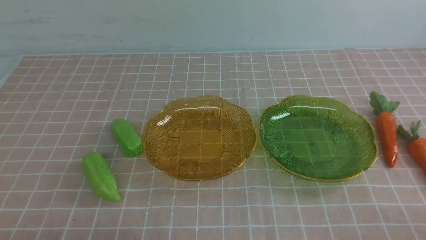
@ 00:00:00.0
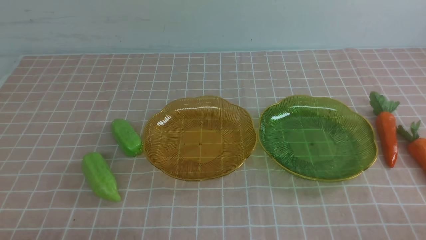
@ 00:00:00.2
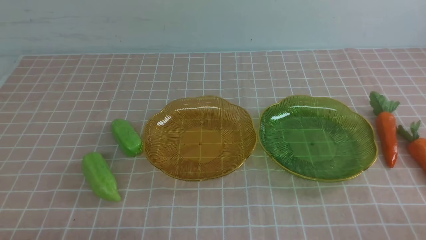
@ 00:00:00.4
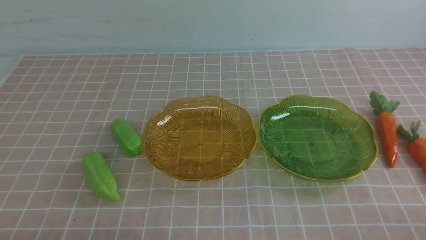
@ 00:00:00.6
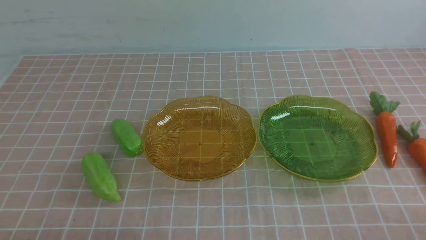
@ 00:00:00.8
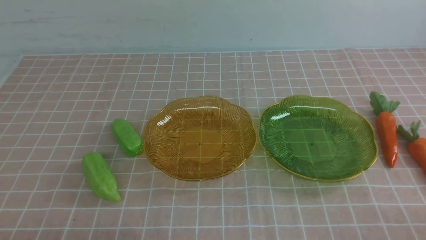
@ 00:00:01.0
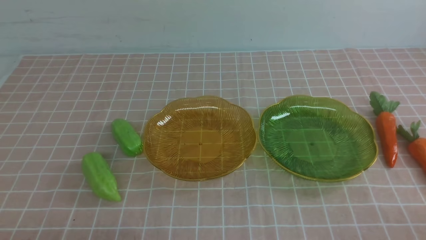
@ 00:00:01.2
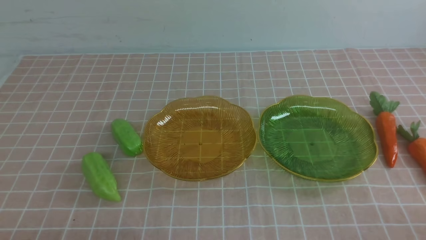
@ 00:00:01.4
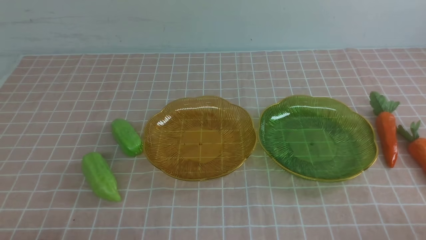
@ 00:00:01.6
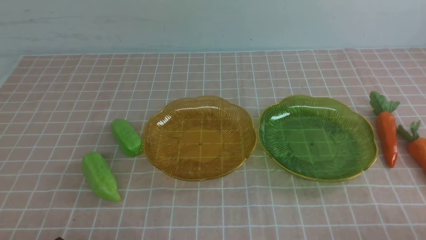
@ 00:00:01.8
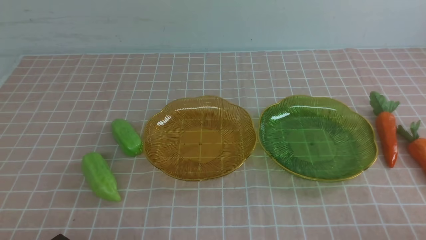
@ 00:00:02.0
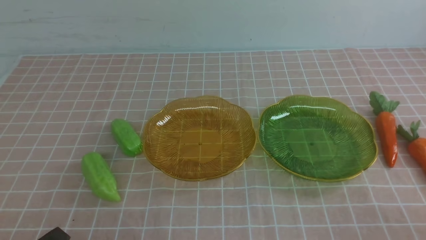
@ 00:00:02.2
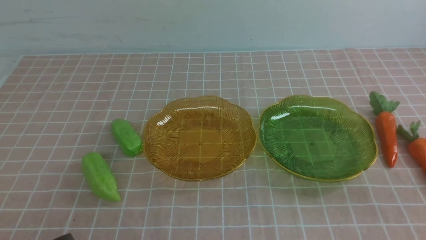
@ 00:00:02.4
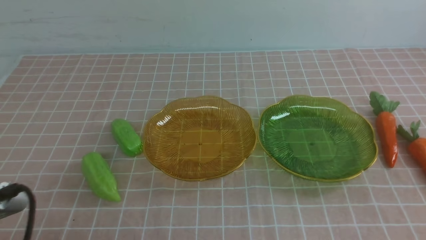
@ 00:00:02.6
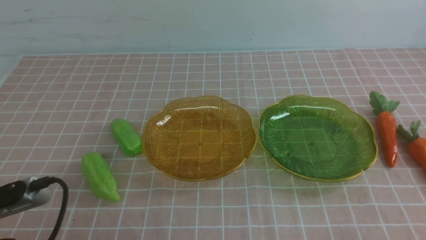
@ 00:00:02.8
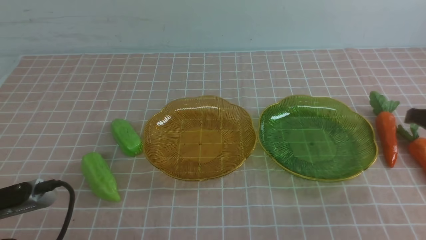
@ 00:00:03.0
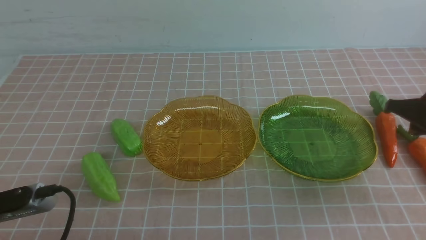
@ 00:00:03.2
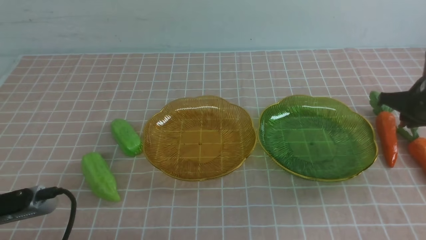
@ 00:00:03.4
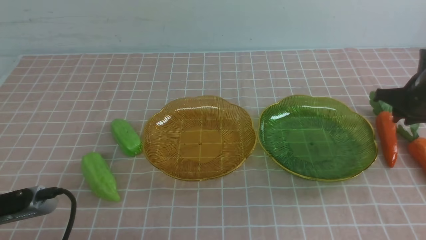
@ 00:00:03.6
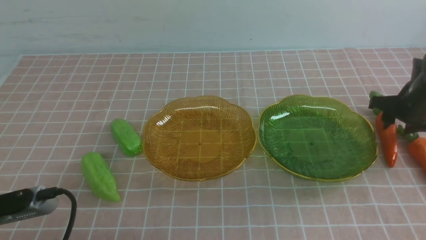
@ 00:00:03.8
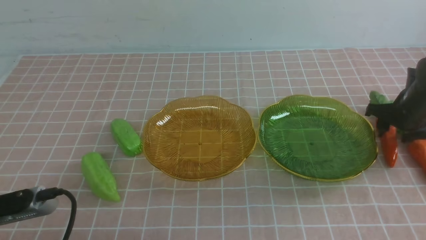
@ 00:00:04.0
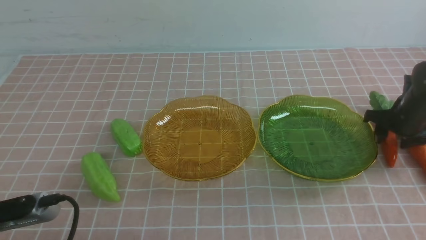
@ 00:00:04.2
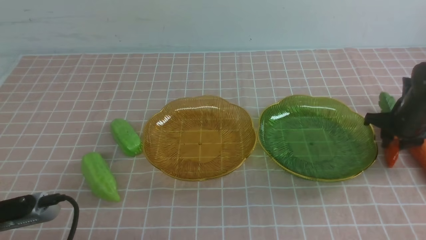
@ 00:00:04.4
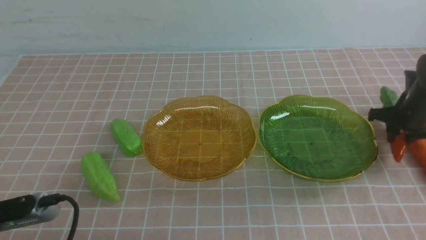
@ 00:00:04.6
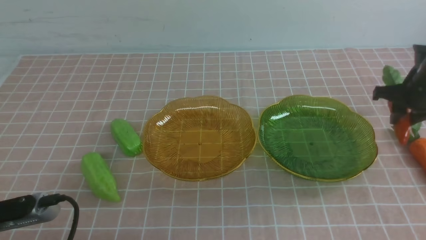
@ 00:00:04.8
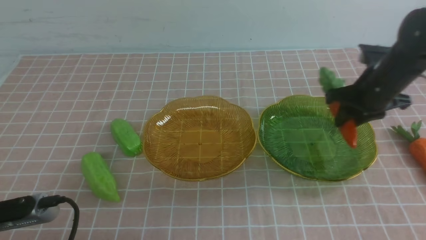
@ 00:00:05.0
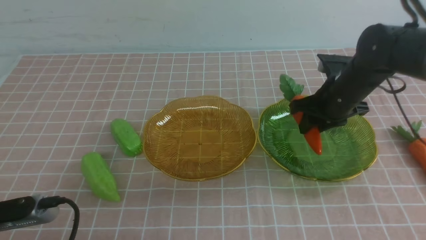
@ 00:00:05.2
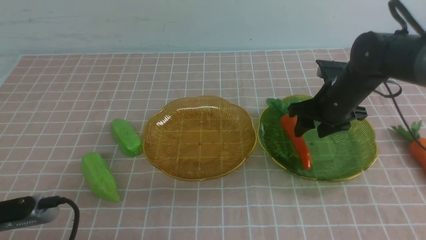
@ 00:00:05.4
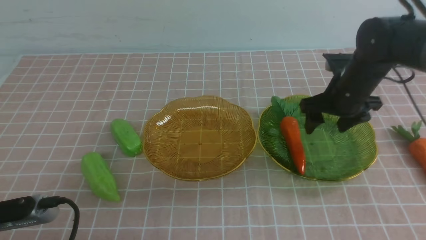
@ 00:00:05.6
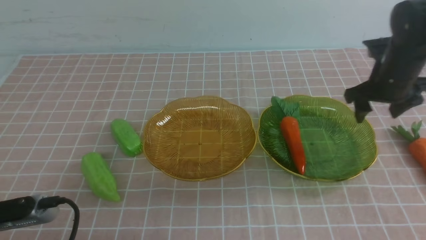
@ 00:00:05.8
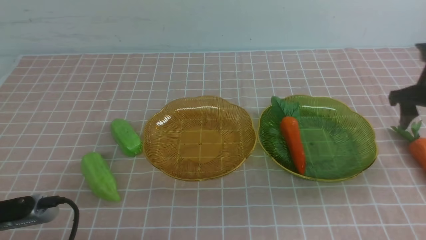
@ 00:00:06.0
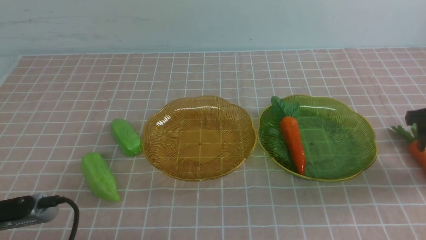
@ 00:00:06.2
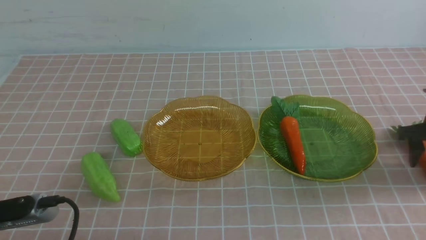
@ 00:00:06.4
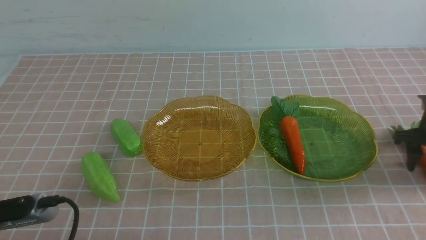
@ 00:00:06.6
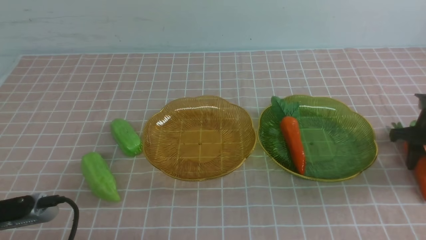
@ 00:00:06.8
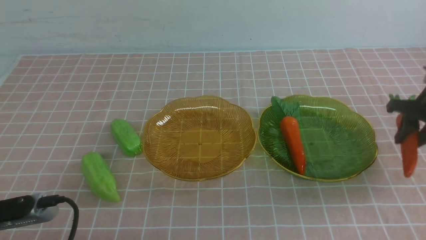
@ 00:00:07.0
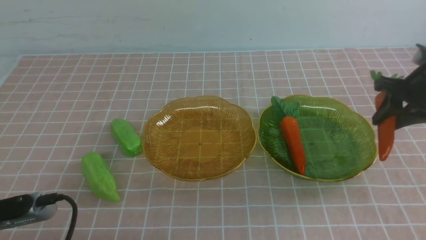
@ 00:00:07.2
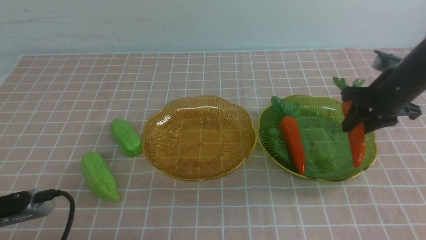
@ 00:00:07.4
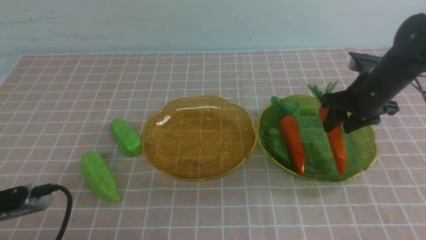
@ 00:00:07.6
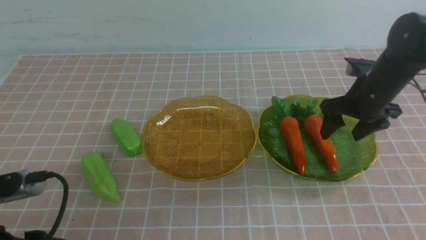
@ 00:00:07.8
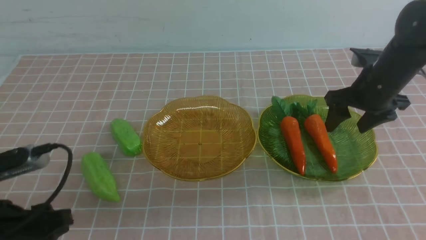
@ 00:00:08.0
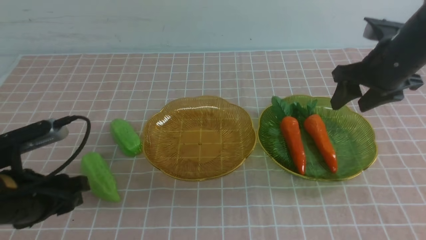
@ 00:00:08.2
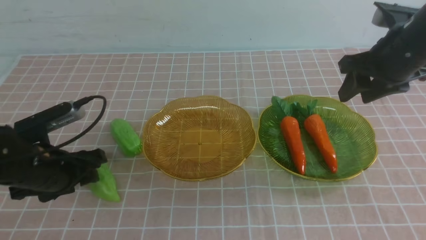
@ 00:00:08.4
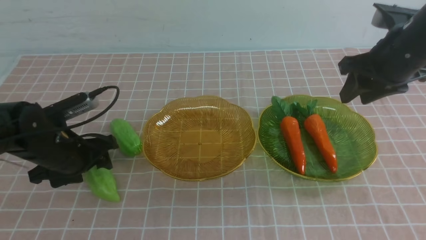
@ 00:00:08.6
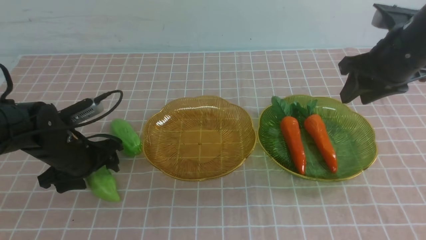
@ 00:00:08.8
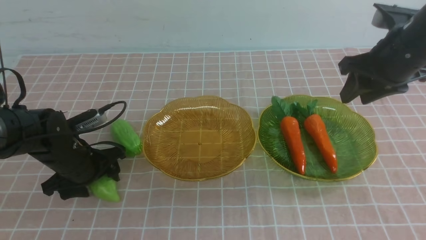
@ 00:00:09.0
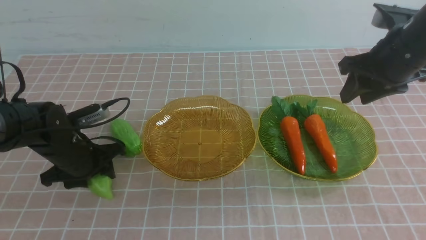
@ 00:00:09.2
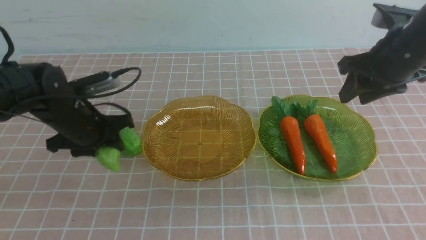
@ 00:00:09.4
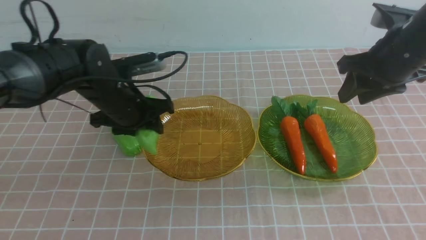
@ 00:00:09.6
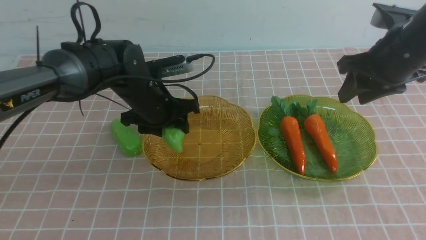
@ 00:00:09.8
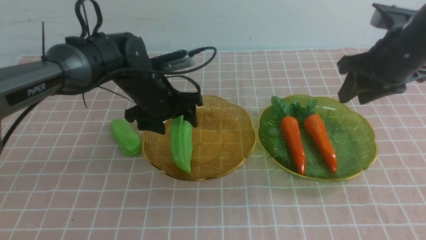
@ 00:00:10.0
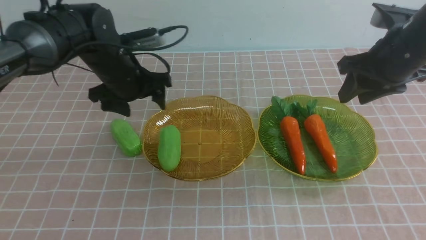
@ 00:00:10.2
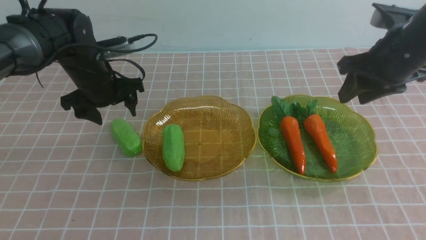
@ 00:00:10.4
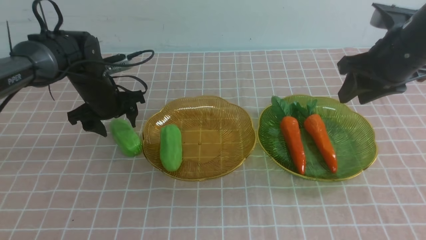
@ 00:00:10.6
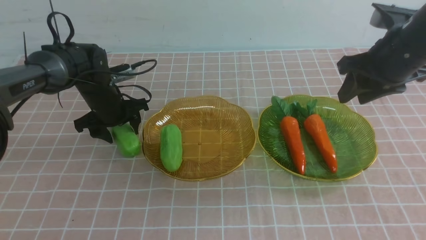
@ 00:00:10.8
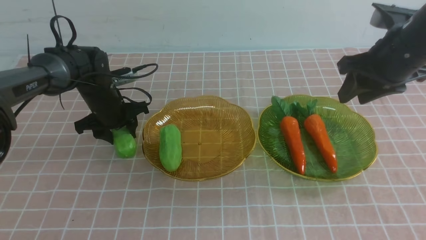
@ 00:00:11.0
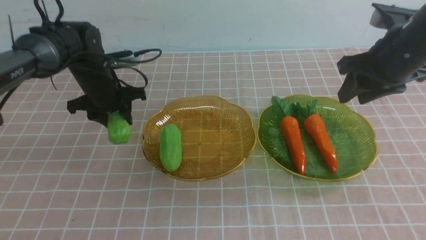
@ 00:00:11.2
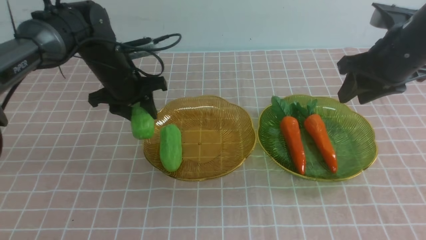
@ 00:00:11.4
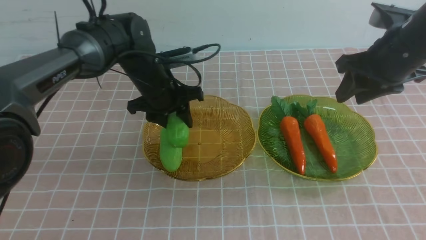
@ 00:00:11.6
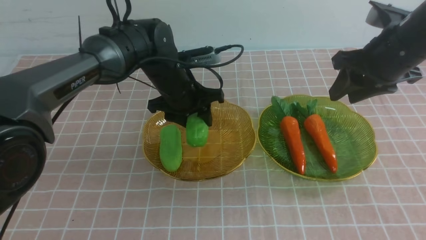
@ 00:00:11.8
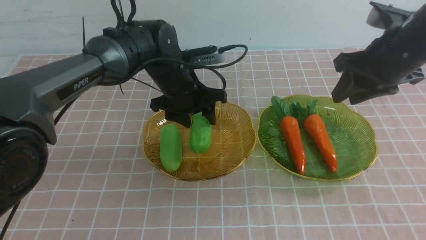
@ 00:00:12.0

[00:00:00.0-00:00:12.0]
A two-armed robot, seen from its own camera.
Step, 00:00:00.0 to 00:00:07.6: use the right arm to grab a carrot and put it into the right plate.
00:00:01.6 to 00:00:03.0: The left gripper goes some 5 cm upward. The right gripper heads forward, covering roughly 20 cm.
00:00:03.0 to 00:00:04.4: The right gripper travels forward and downward by approximately 15 cm, and opens its fingers.
00:00:04.4 to 00:00:06.0: The right gripper goes some 5 cm upward, goes to the left and returns, roughly 15 cm each way, and opens.
00:00:06.0 to 00:00:07.6: The left gripper opens its fingers, while the right gripper is displaced to the left by about 10 cm, and closes and opens again.
00:00:07.6 to 00:00:09.0: The left gripper shifts some 25 cm forward. The right gripper goes approximately 10 cm upward, and closes its fingers.
00:00:09.0 to 00:00:10.4: The left gripper is displaced forward by some 5 cm.
00:00:10.4 to 00:00:12.0: The right gripper shifts roughly 20 cm backward, and closes. Meanwhile the left gripper heads to the right, covering about 15 cm.

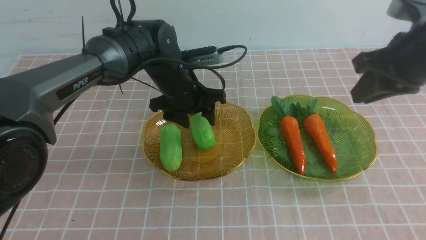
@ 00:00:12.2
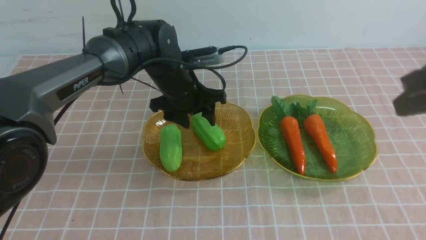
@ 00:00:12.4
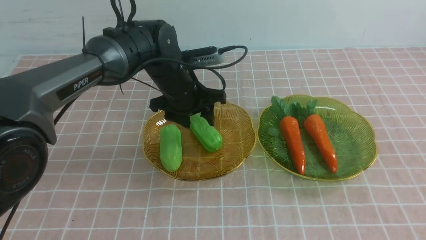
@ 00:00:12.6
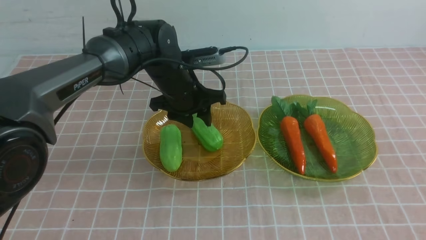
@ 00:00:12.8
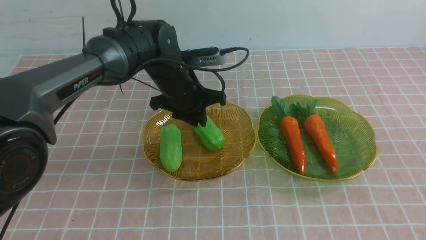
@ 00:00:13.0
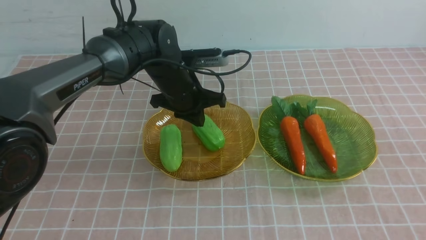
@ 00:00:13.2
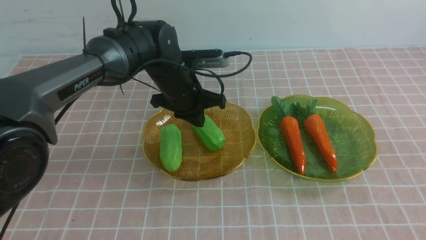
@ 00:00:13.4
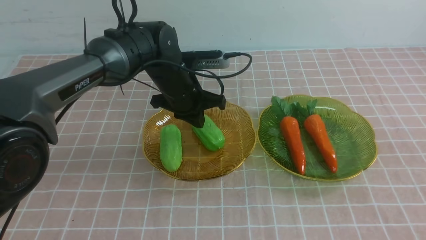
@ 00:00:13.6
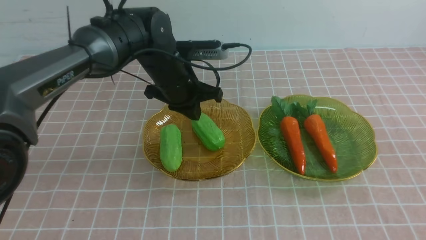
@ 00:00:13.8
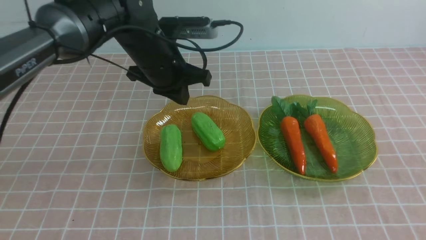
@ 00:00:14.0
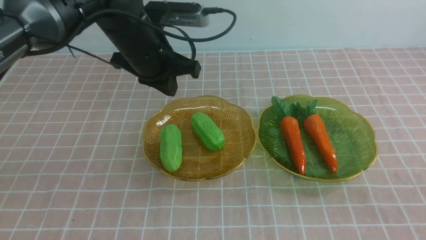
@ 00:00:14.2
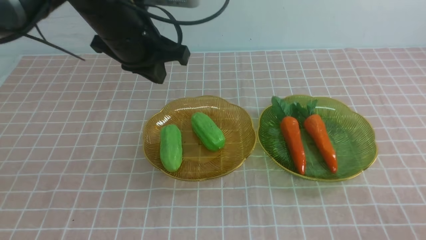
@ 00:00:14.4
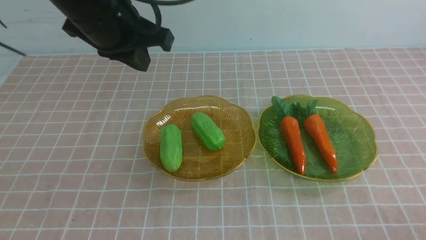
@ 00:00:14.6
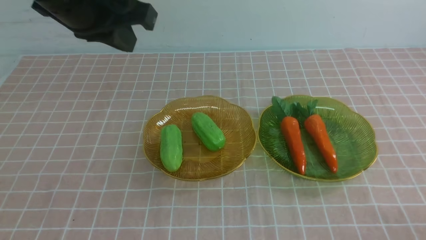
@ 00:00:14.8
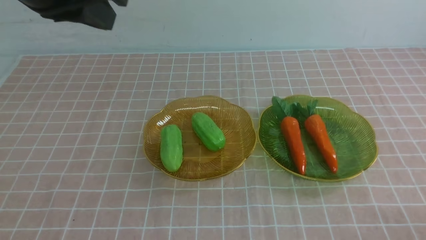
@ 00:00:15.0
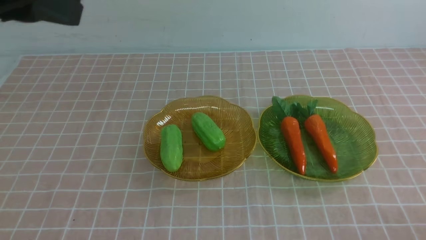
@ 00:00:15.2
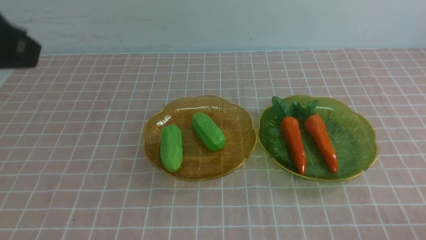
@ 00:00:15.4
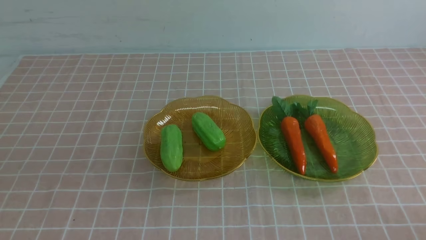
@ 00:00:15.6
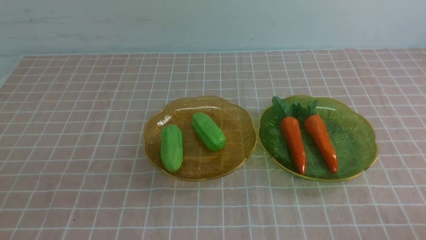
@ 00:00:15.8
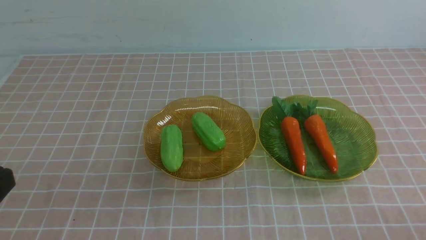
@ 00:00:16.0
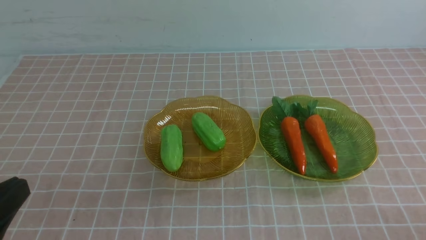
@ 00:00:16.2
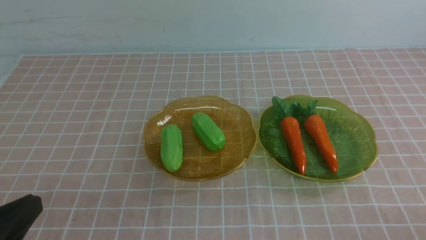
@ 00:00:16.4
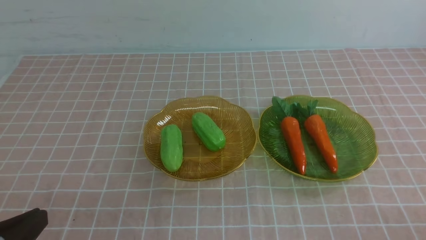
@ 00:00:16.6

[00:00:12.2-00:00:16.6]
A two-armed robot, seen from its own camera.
00:00:12.2 to 00:00:13.6: The right gripper shifts roughly 5 cm downward. Meanwhile the left gripper is displaced upward by some 10 cm, and closes.
00:00:13.6 to 00:00:15.2: The right gripper goes approximately 10 cm downward. Meanwhile the left gripper heads backward, upward and to the left, covering some 30 cm.
00:00:15.2 to 00:00:16.6: The left gripper travels downward and backward by about 25 cm.
